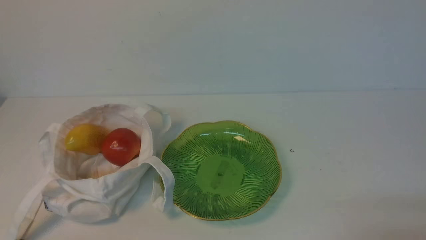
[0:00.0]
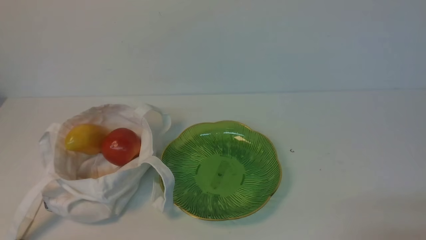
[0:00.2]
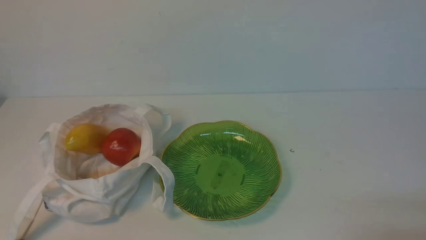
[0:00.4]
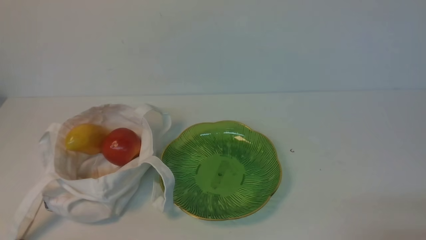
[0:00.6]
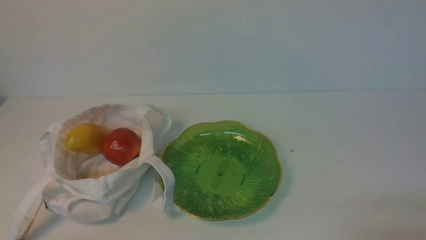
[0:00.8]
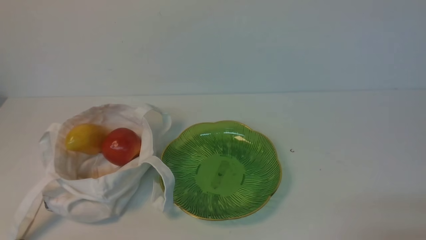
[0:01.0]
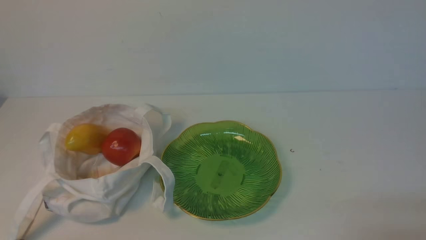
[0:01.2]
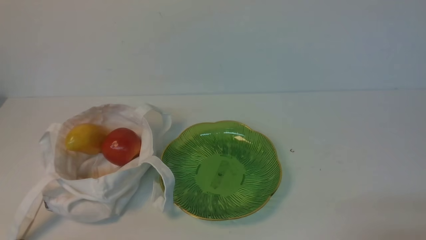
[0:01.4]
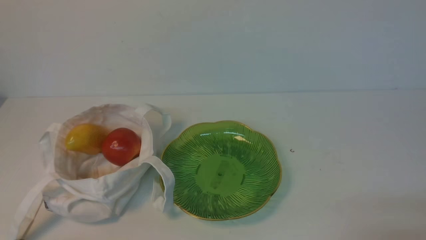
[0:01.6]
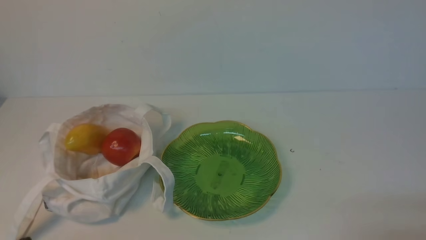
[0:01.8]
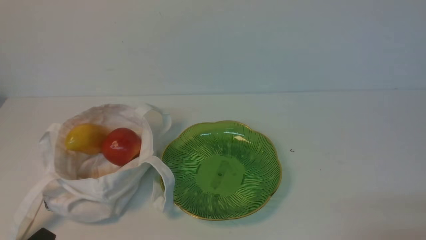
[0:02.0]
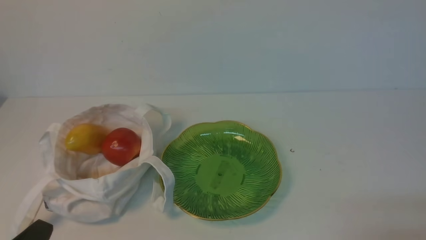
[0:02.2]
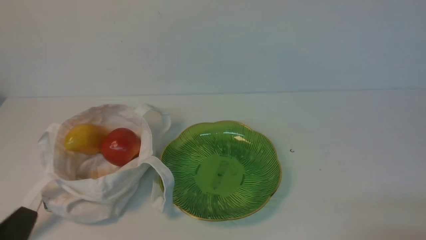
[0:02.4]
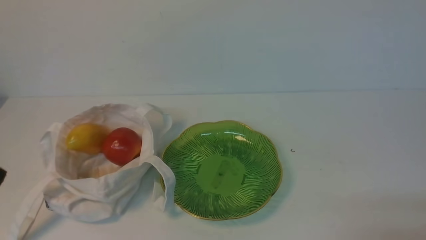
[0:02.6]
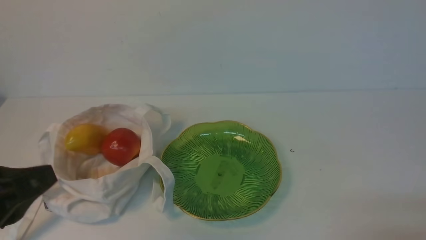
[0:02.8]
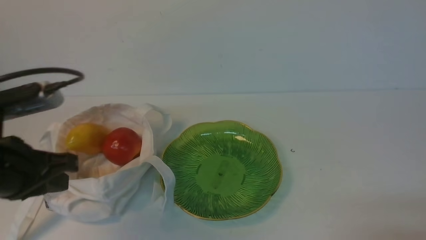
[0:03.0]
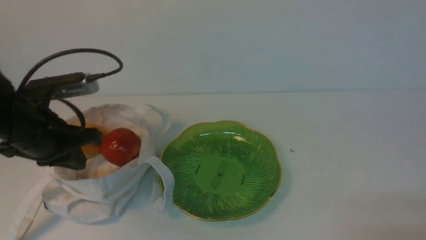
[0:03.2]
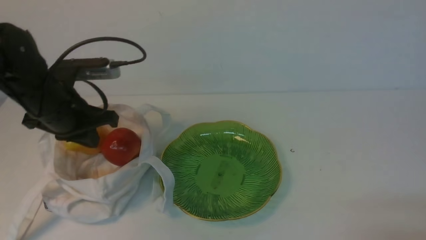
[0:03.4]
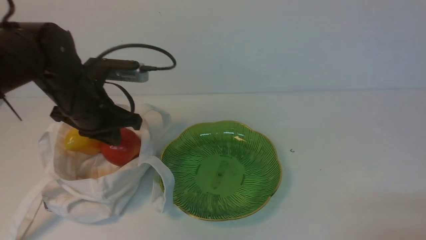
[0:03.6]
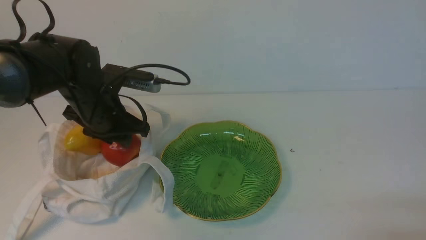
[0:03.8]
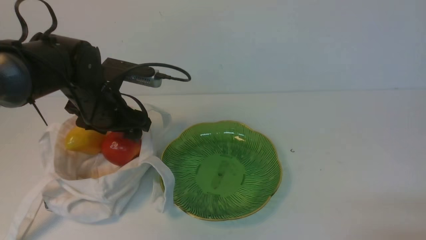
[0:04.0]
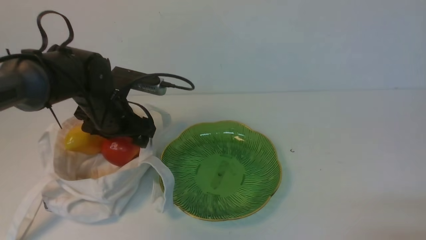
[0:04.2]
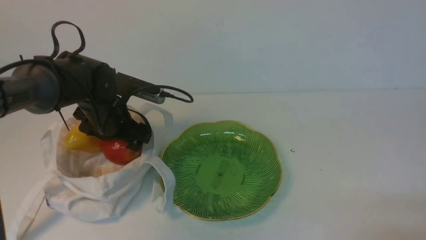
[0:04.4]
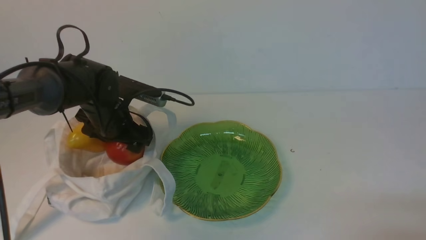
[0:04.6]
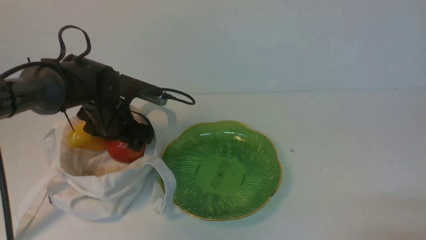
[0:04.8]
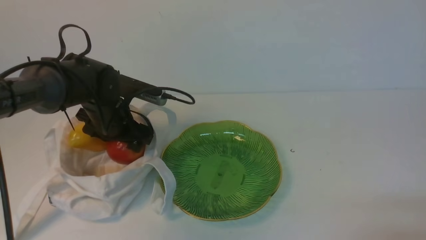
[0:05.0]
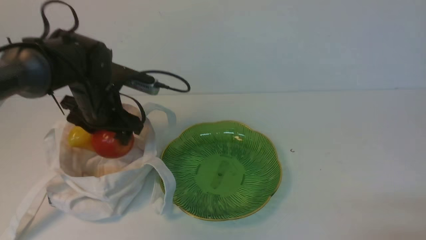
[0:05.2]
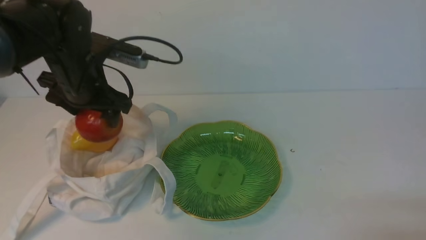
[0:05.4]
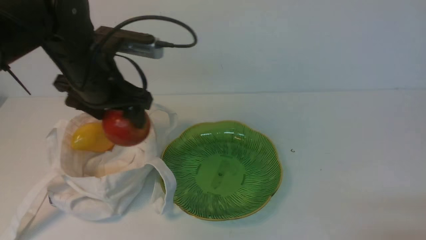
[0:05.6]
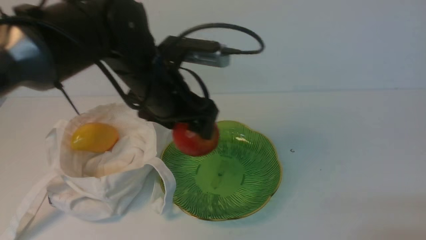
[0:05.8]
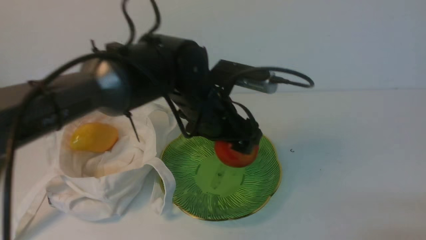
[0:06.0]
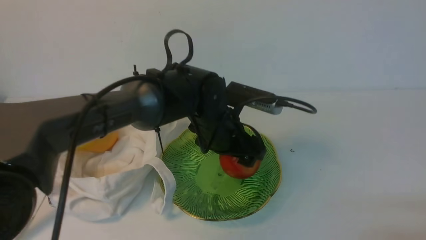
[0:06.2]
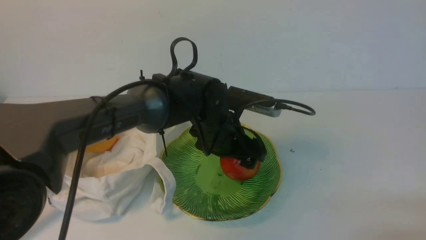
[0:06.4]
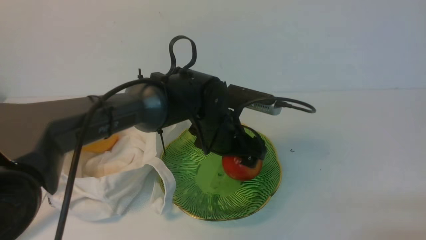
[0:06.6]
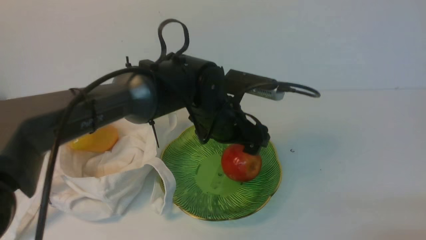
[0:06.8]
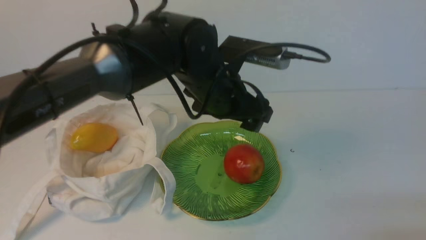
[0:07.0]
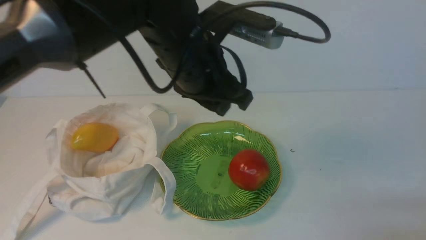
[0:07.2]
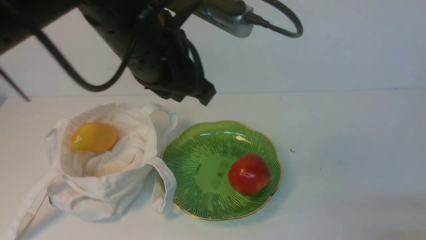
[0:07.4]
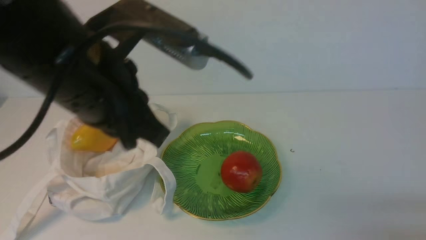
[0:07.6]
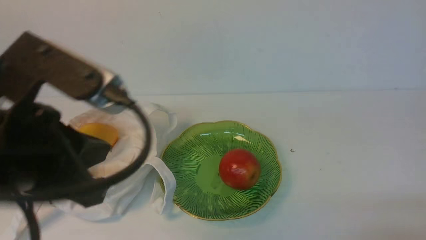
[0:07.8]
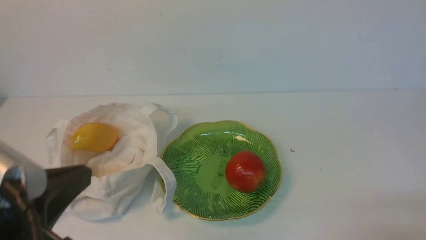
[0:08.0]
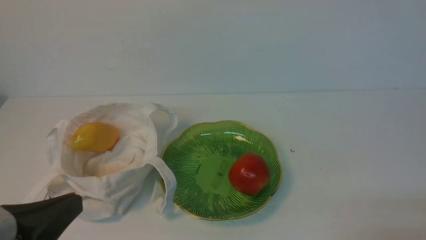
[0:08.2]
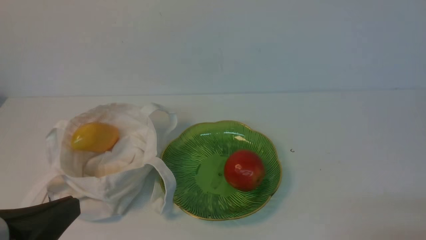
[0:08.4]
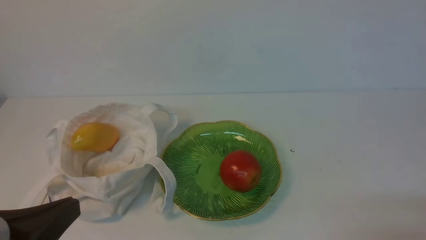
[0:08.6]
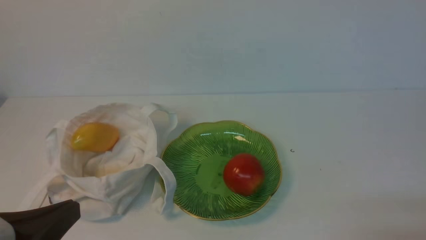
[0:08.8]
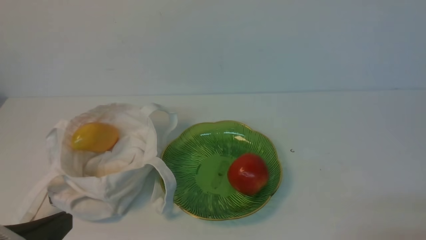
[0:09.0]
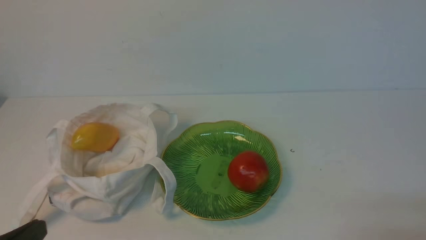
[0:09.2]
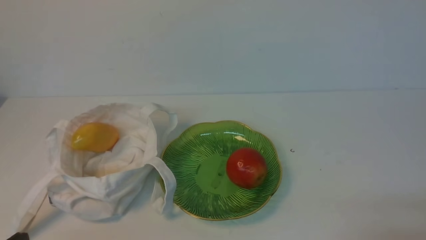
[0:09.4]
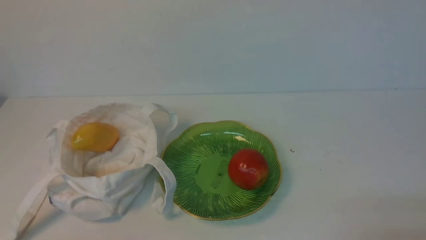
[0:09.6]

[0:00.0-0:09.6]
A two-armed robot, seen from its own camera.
Step, 0:00.0 to 0:05.2: use the left arm to grab an apple from the bag.
Step, 0:05.4 to 0:06.6: use the left arm to put the apple into the empty plate on the right.
0:00.0 to 0:01.6: The two grippers keep their place.
0:01.6 to 0:03.2: The left gripper is displaced forward and upward by some 25 cm.
0:03.2 to 0:04.8: The left gripper travels forward, downward and to the right by about 15 cm, and opens.
0:04.8 to 0:06.4: The left gripper travels to the right by approximately 20 cm.
0:06.4 to 0:08.0: The left gripper heads backward, to the left and upward, covering approximately 35 cm, and closes.
0:08.0 to 0:09.6: The left gripper goes roughly 15 cm downward.

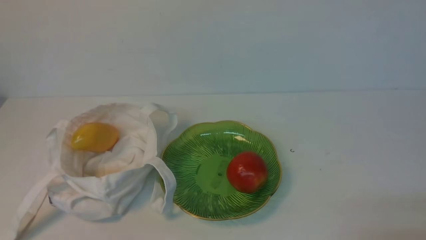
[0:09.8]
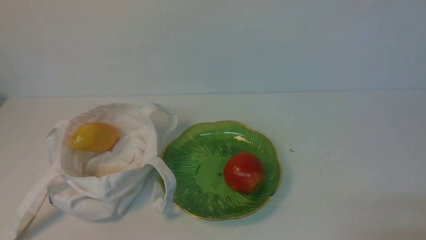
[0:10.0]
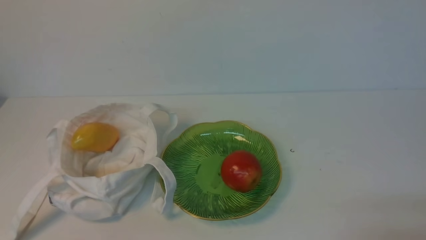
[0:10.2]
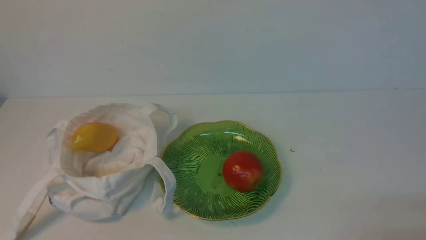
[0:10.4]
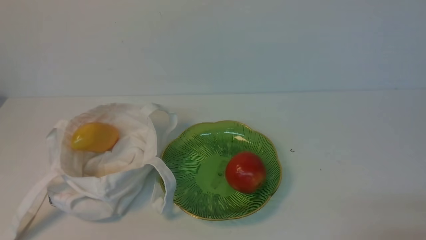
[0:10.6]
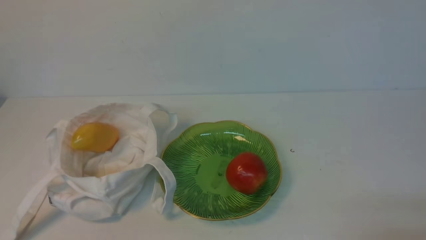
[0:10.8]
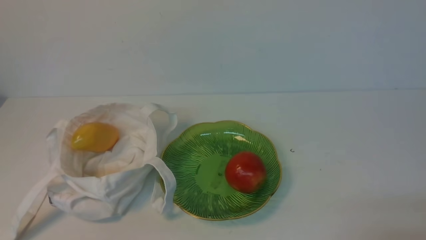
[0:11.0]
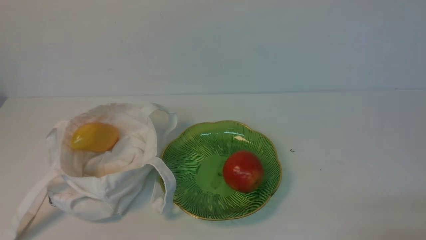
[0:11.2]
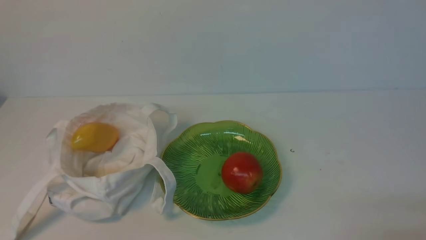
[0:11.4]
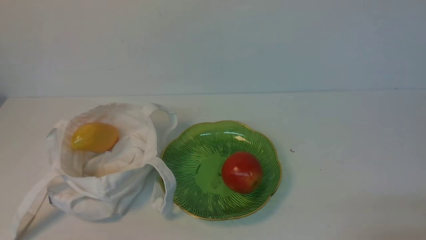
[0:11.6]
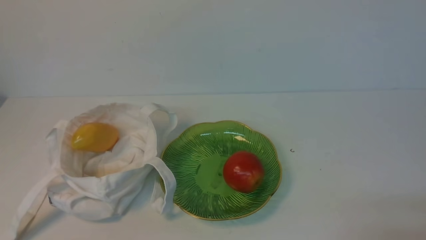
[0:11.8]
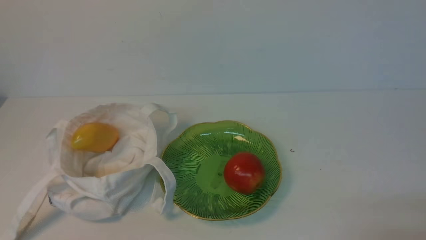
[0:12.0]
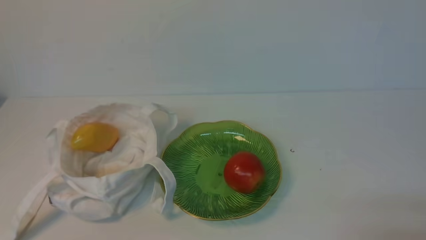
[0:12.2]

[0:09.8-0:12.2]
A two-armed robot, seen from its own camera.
0:09.8 to 0:12.2: Both grippers stay about where they are.
